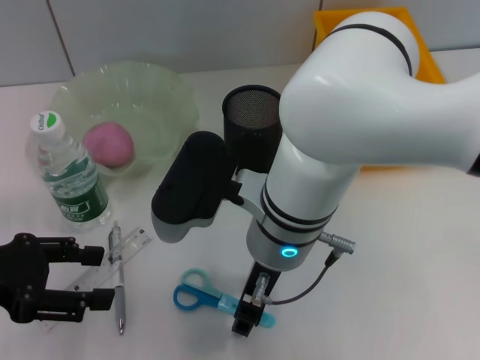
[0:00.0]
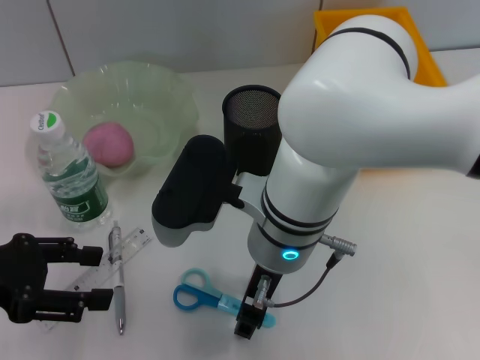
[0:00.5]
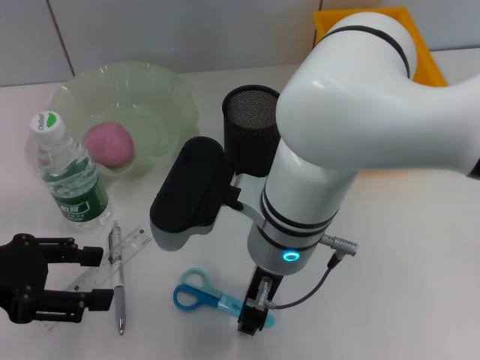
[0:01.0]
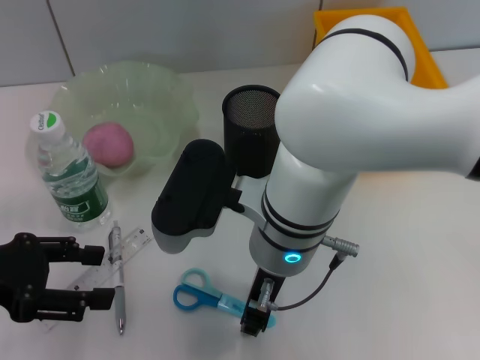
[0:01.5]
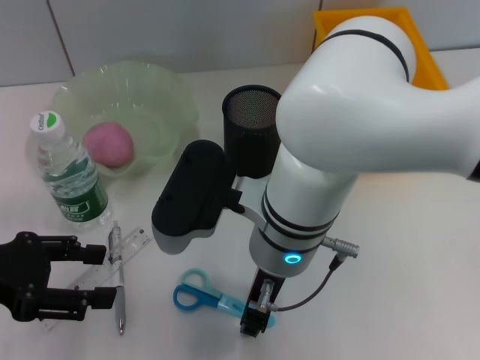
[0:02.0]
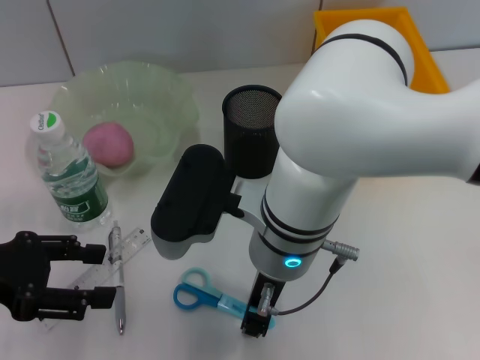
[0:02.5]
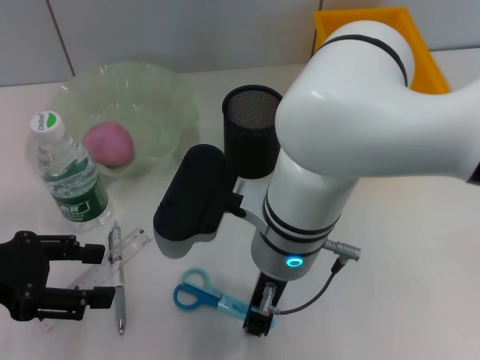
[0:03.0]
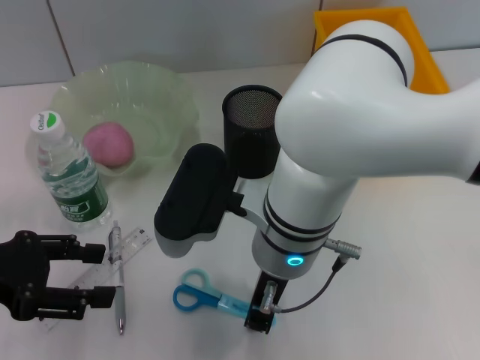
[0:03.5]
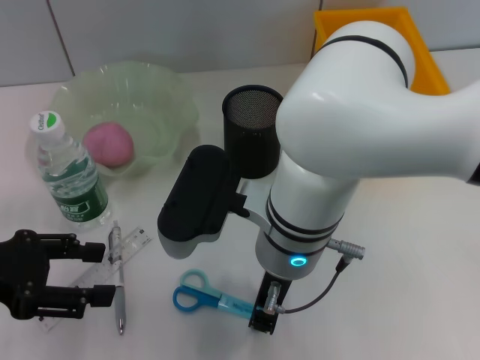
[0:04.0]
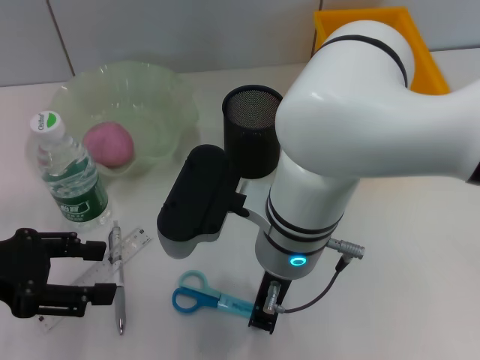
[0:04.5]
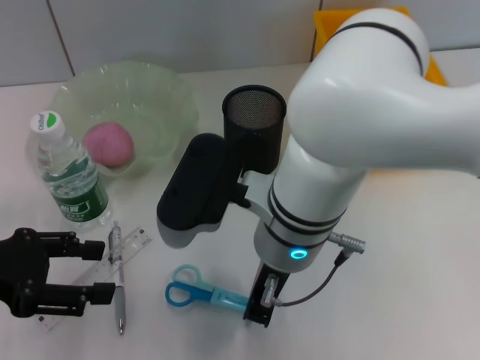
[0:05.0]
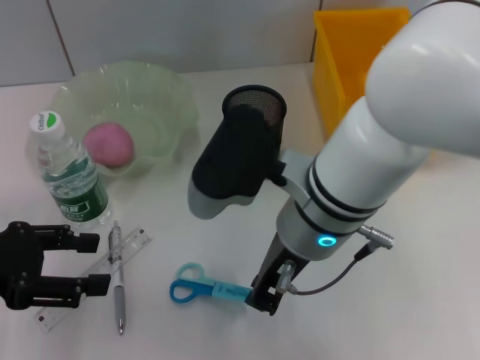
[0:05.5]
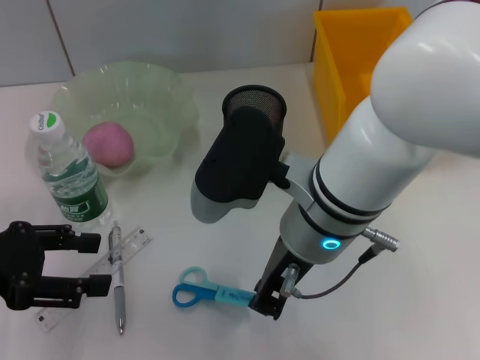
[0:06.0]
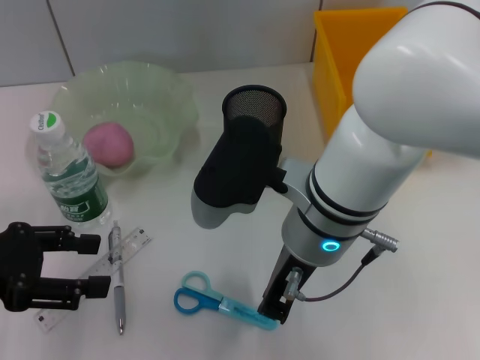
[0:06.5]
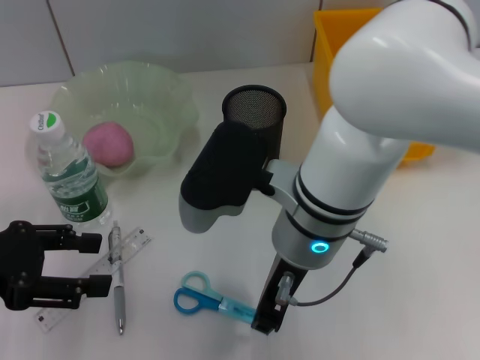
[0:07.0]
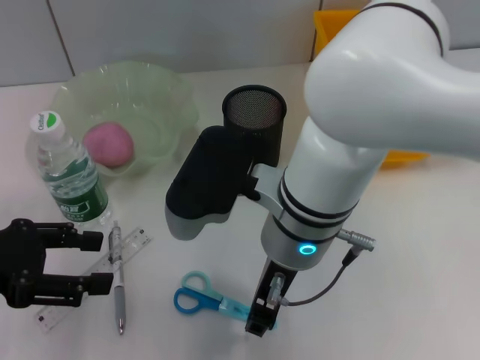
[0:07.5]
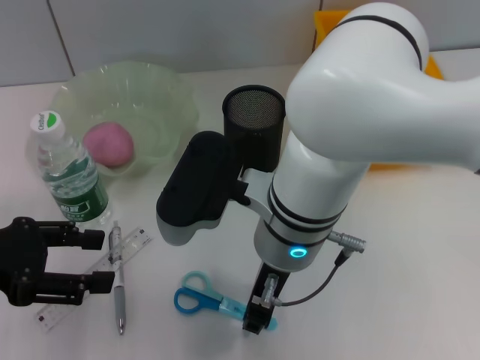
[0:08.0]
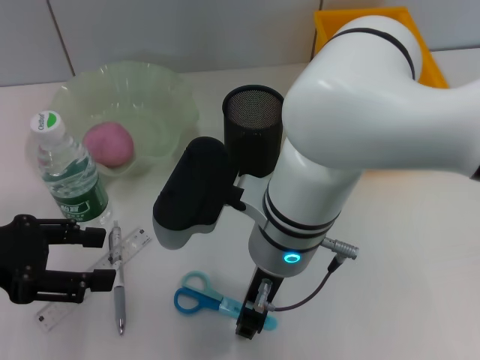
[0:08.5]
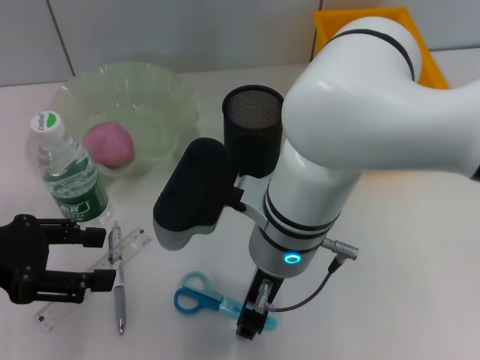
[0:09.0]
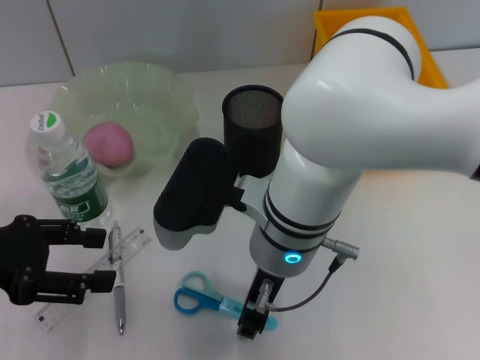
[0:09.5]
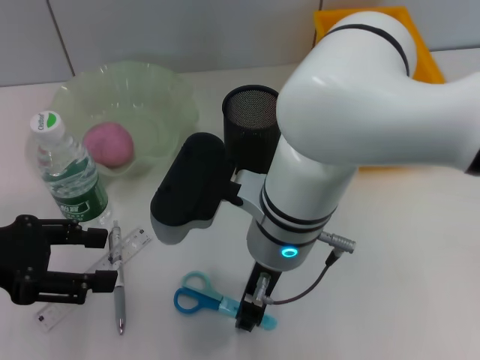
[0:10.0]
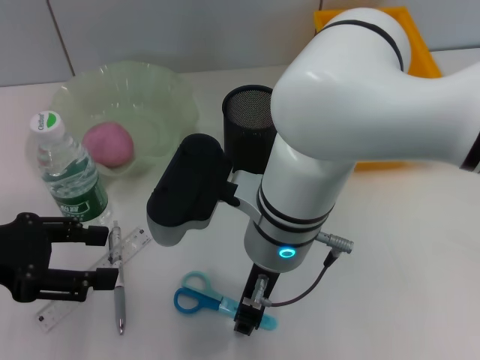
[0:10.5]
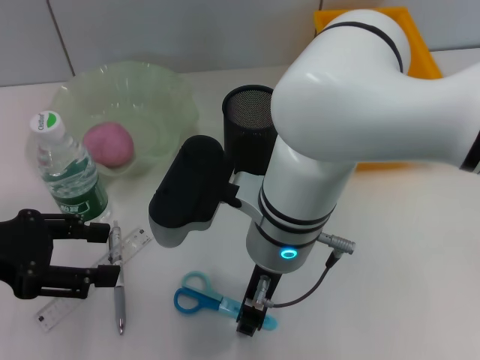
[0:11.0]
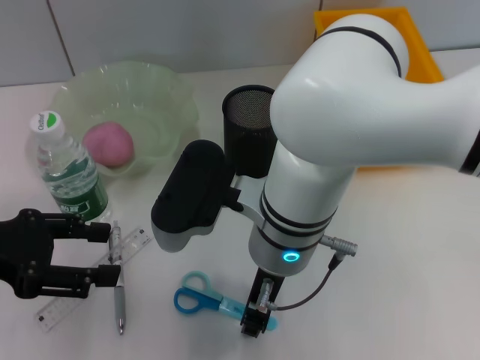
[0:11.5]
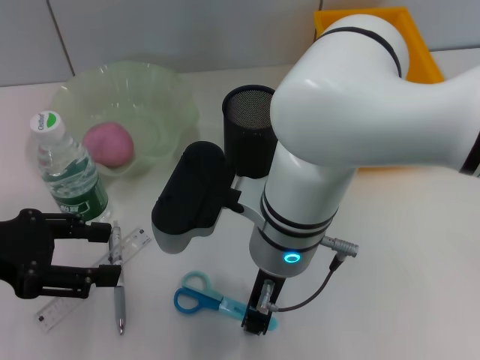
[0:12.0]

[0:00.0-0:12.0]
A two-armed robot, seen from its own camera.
0.0 to 4.0 s: Neither gripper changes place.
6.0 to 8.0 s: The right gripper opens.
8.0 to 12.0 s: Both grippers stay put.

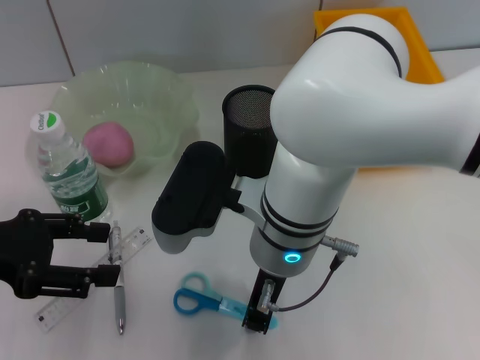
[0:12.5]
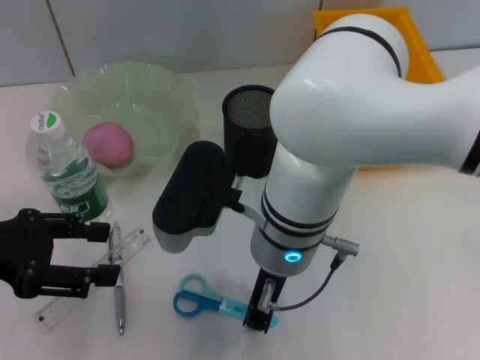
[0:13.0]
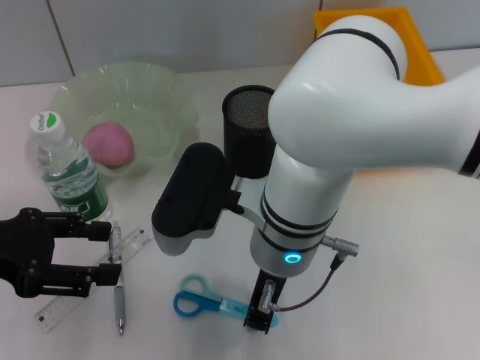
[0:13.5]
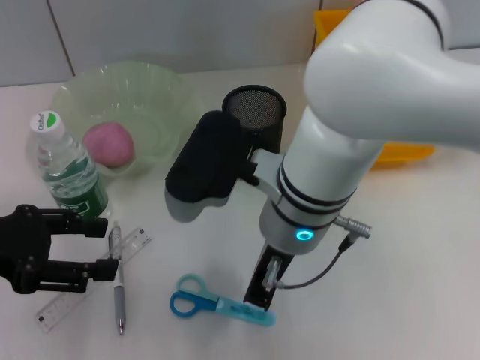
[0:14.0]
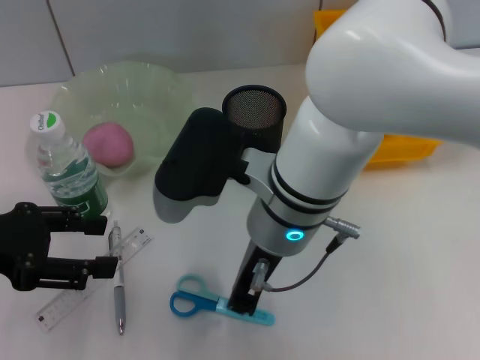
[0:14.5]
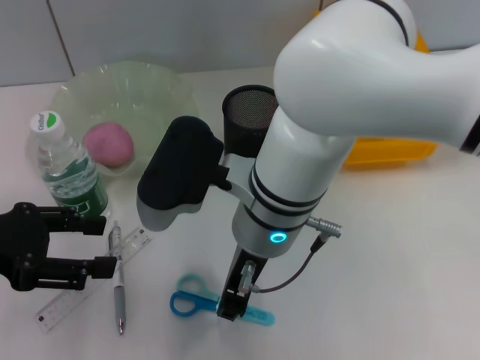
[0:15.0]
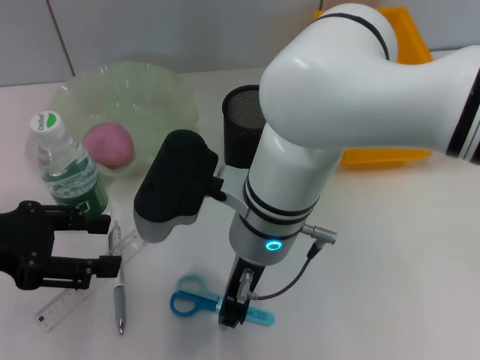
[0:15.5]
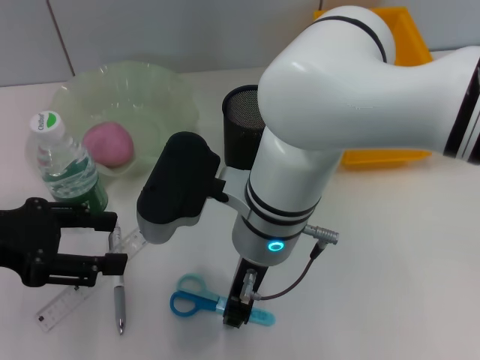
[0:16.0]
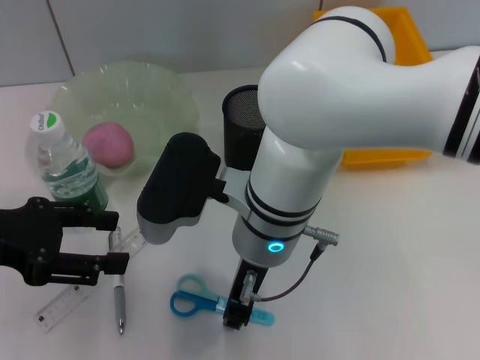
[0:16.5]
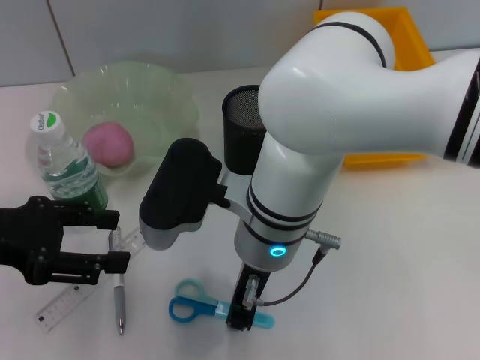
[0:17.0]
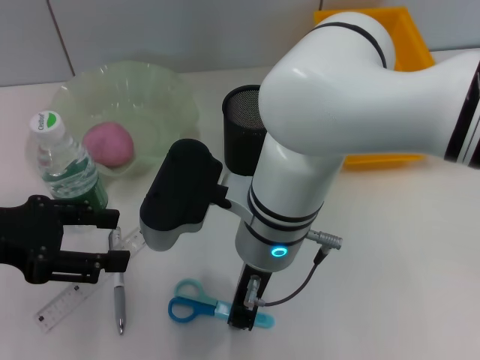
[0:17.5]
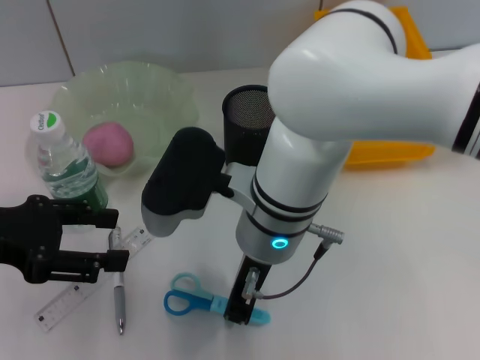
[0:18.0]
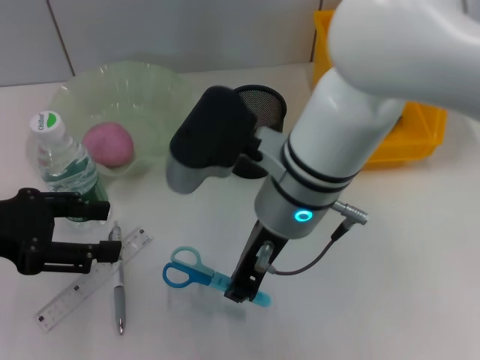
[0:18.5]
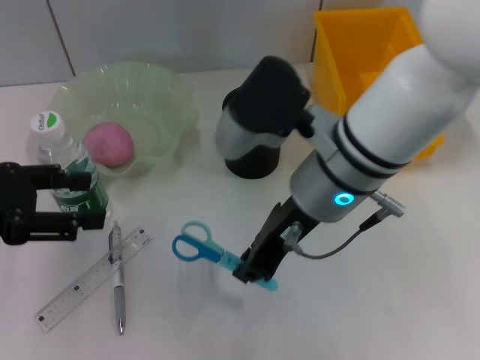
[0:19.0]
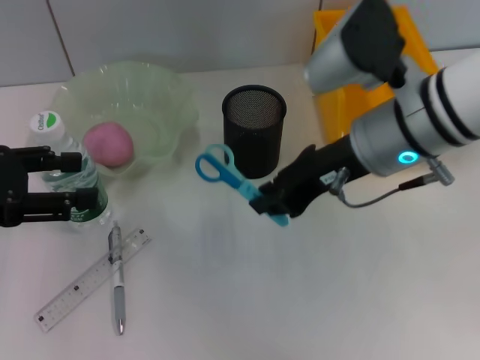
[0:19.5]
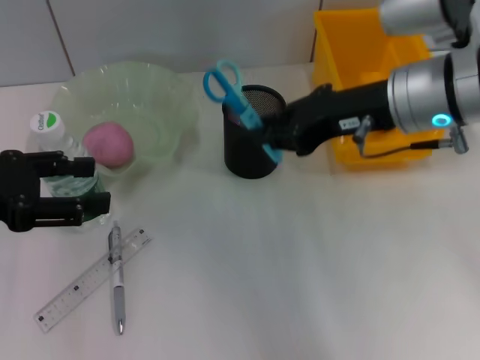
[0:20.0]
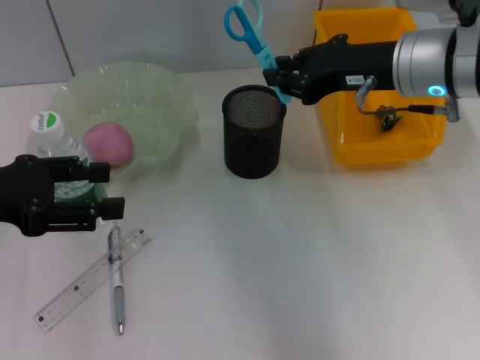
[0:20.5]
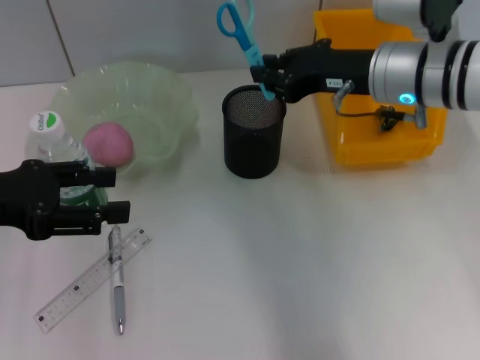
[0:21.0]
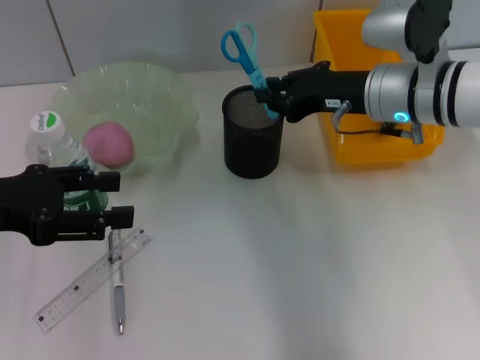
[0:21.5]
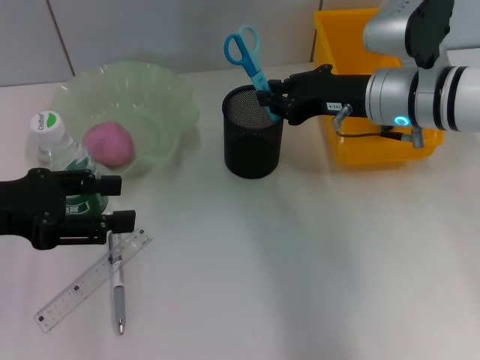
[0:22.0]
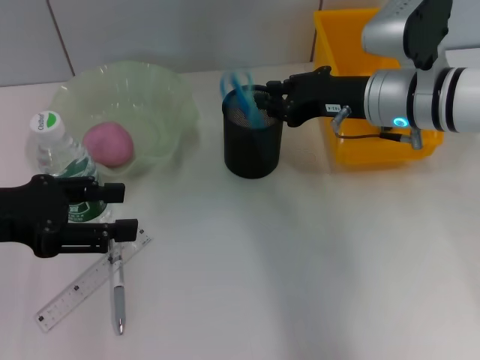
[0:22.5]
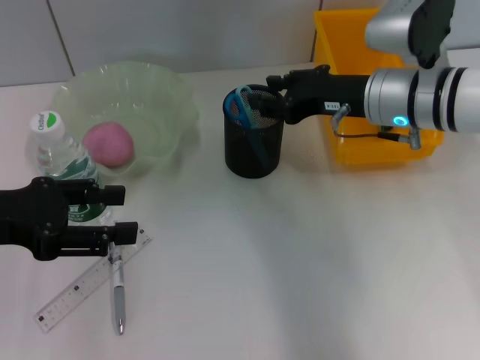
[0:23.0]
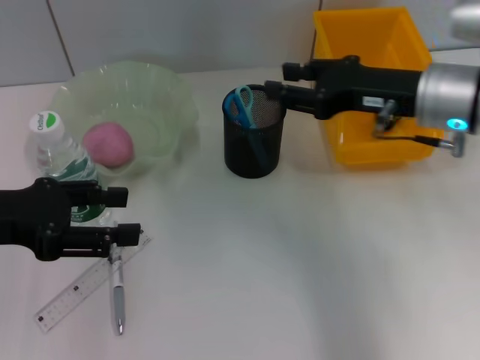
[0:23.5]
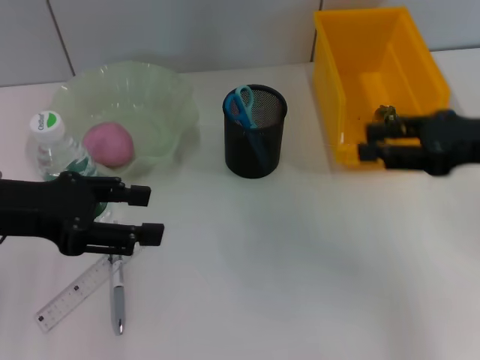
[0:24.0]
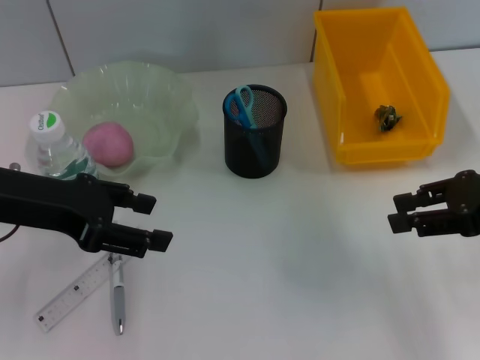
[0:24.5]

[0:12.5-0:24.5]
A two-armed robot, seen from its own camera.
Step, 12.5 to 17.5 s: Grab the blue scissors with the right hand.
Step, 18.0 to 23.0 s: Place the blue scissors into the pen holder with the right hand.
18.5 to 20.5 s: The right gripper shifts roughly 15 cm to the right and forward.
20.5 to 22.5 s: The right gripper moves downward, approximately 5 cm.
22.5 to 24.5 s: The left gripper changes place by approximately 5 cm, while the right gripper moves to the right and backward, approximately 15 cm, and opens up.

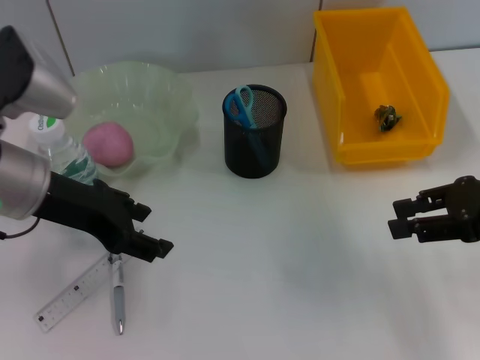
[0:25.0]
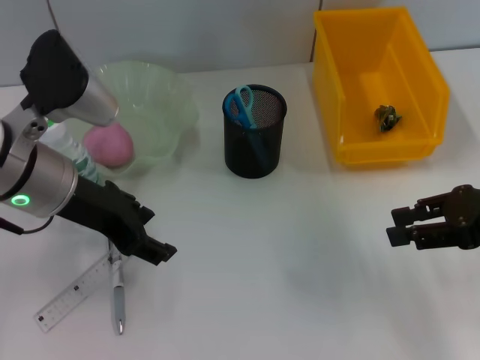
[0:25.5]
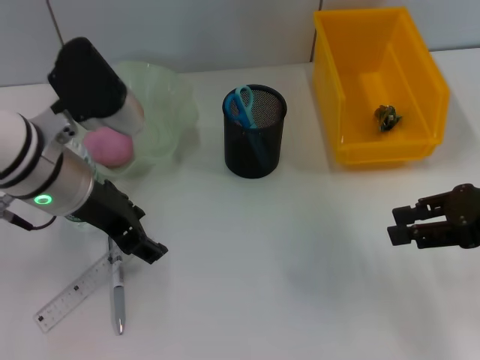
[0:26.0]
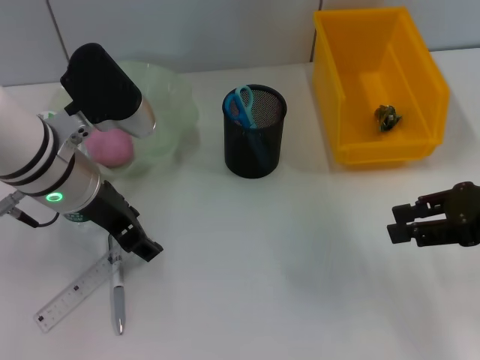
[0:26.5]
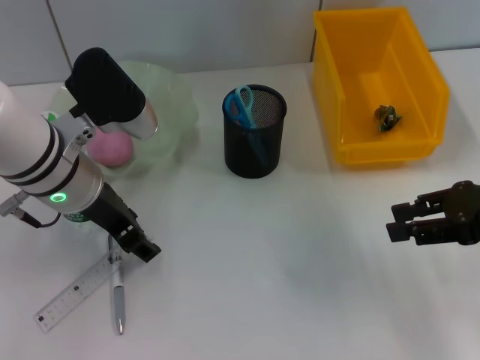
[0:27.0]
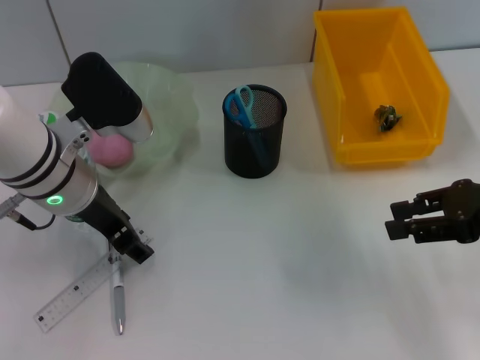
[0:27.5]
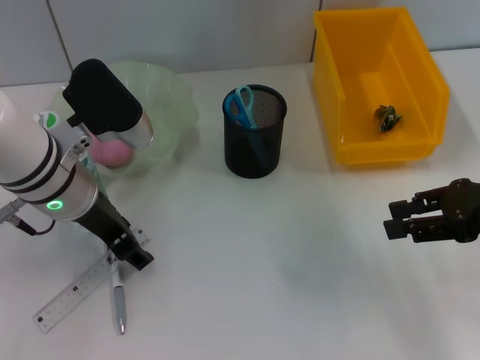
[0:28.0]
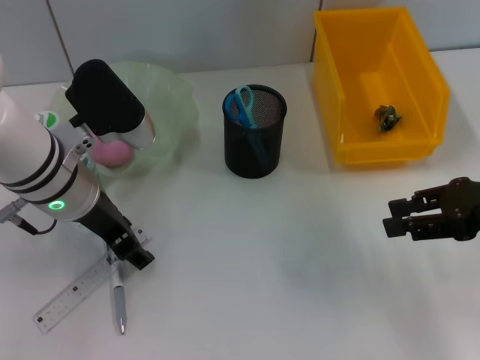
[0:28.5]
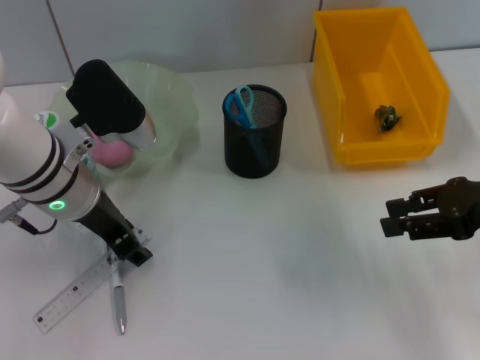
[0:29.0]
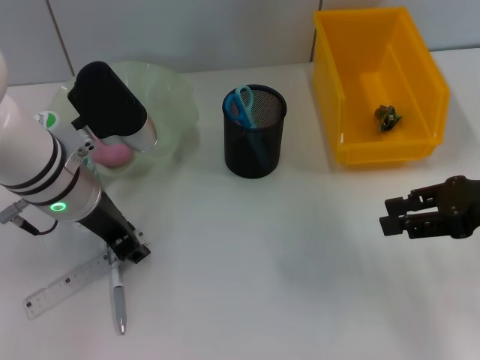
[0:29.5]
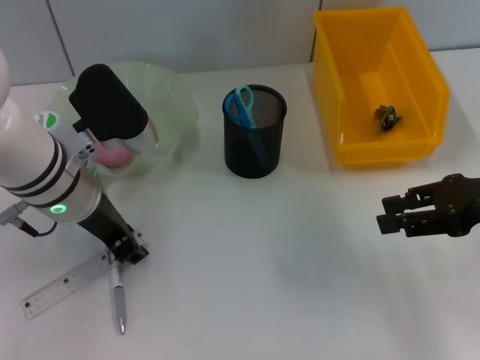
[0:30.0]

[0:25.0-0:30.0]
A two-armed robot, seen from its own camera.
25.0 to 27.5 s: The left gripper changes place by some 5 cm.
27.5 to 30.0 s: The left gripper closes.
